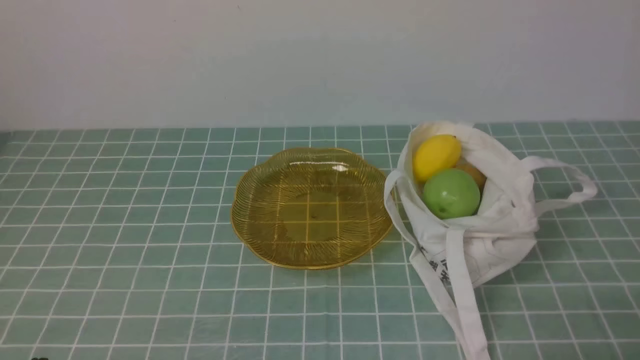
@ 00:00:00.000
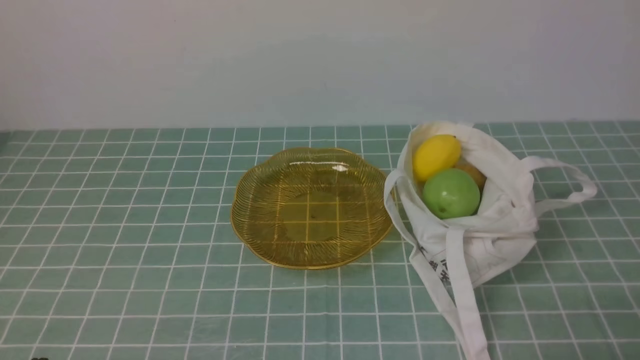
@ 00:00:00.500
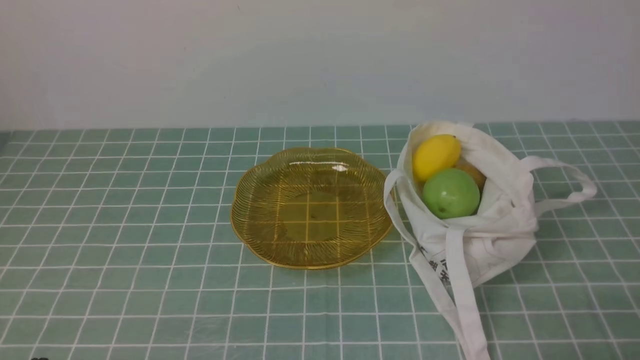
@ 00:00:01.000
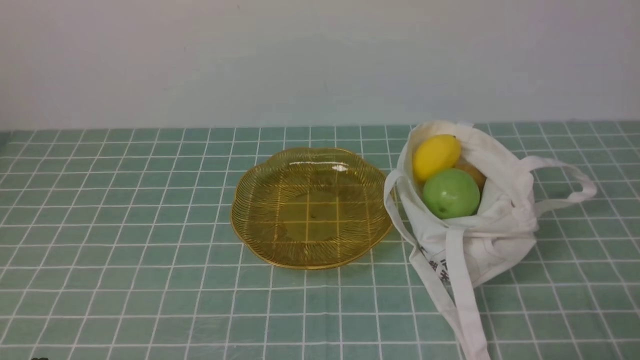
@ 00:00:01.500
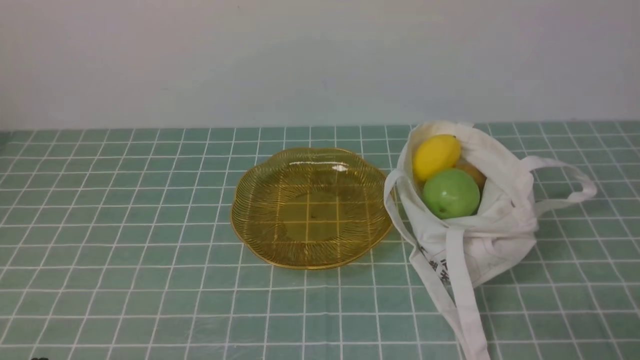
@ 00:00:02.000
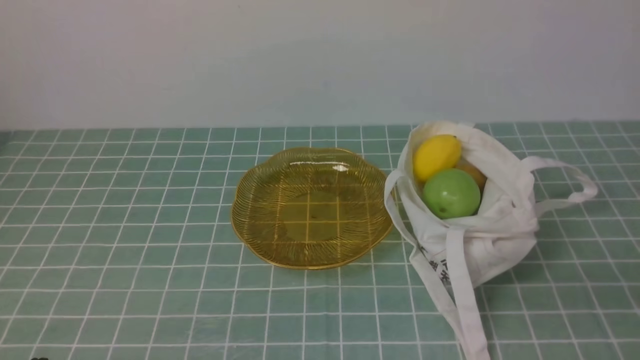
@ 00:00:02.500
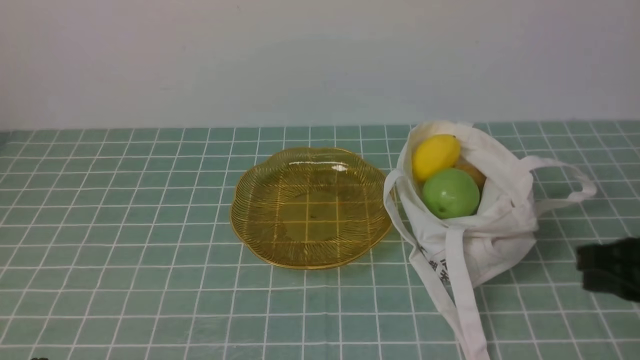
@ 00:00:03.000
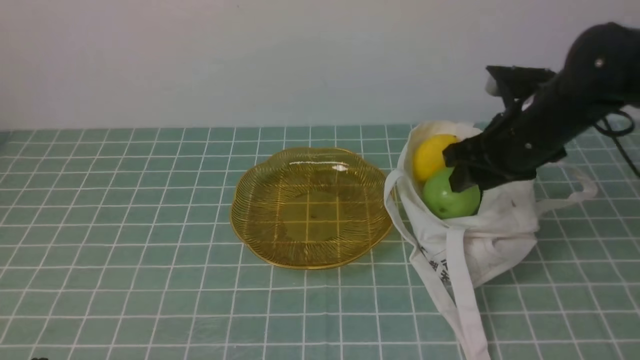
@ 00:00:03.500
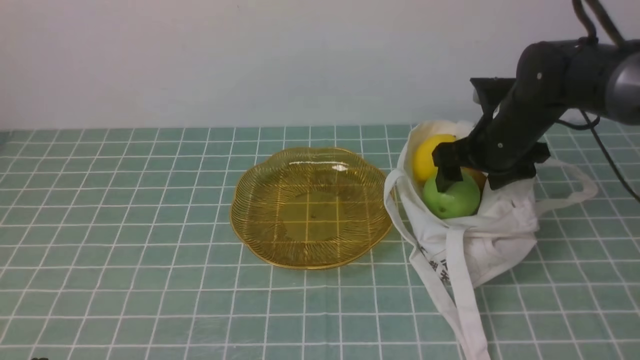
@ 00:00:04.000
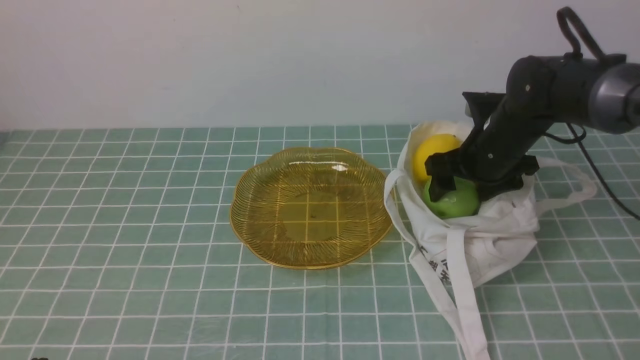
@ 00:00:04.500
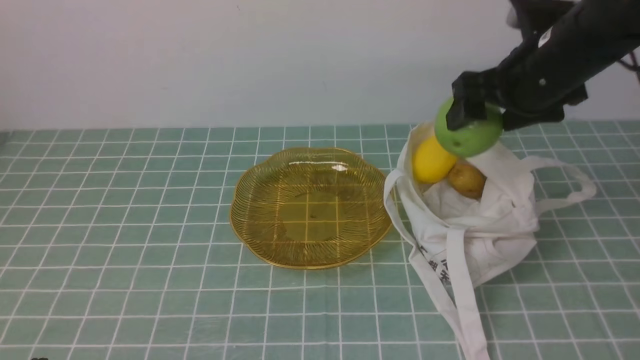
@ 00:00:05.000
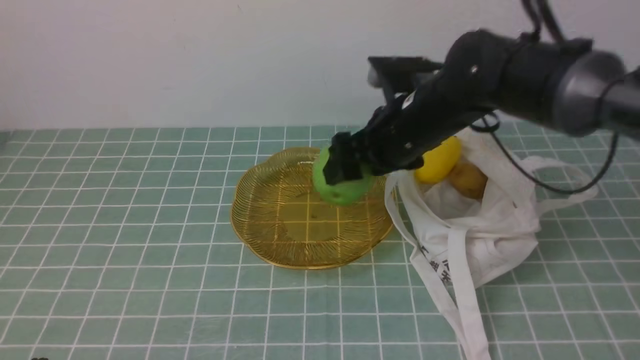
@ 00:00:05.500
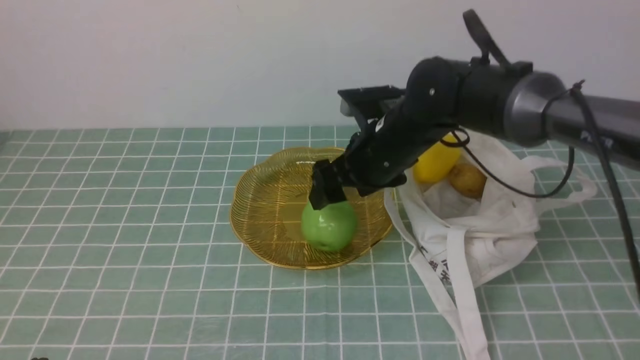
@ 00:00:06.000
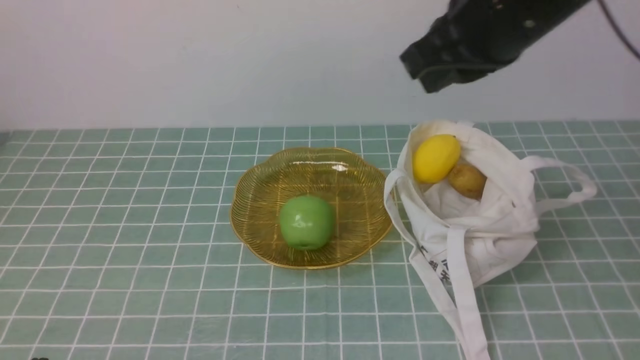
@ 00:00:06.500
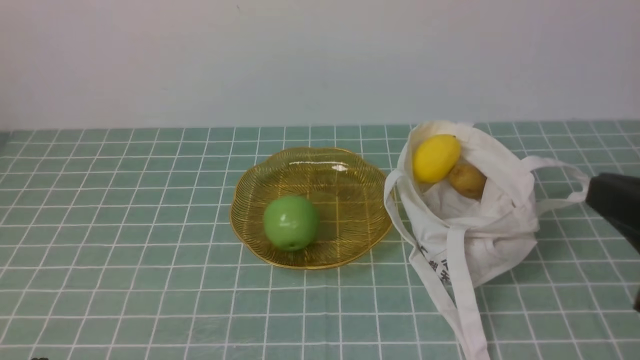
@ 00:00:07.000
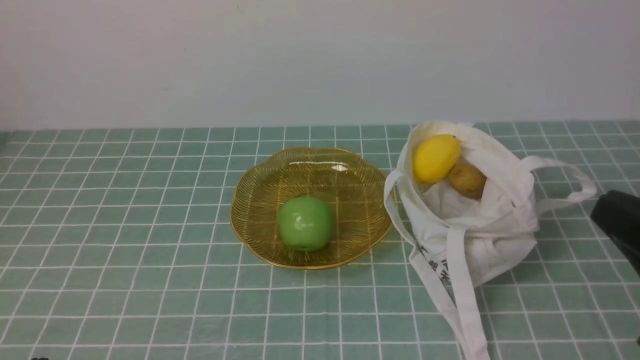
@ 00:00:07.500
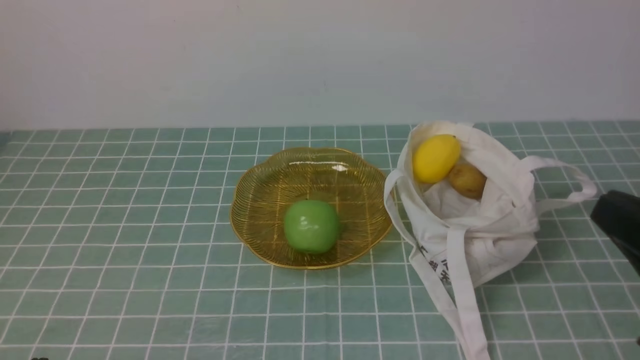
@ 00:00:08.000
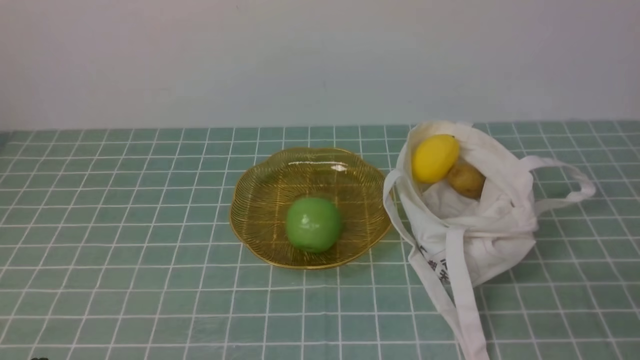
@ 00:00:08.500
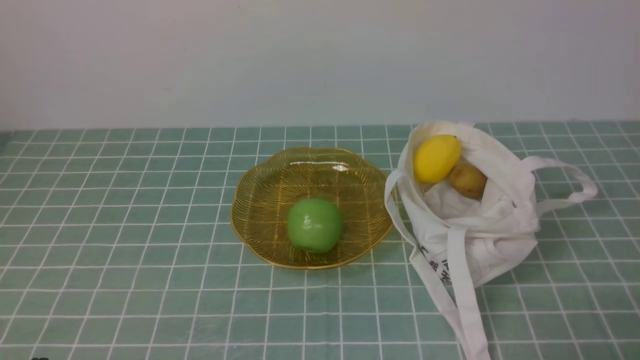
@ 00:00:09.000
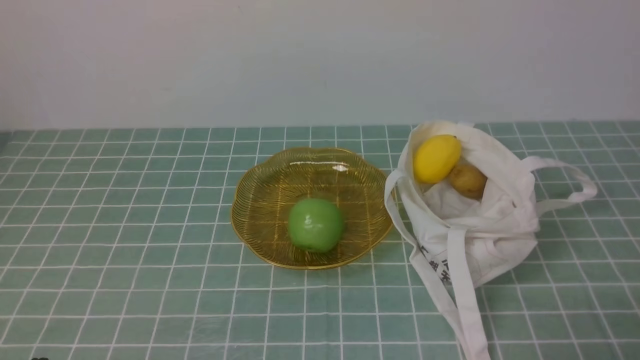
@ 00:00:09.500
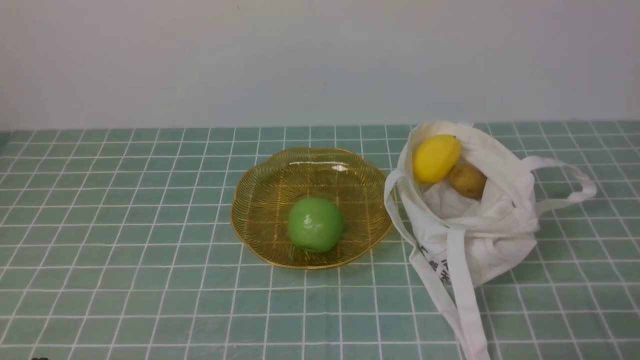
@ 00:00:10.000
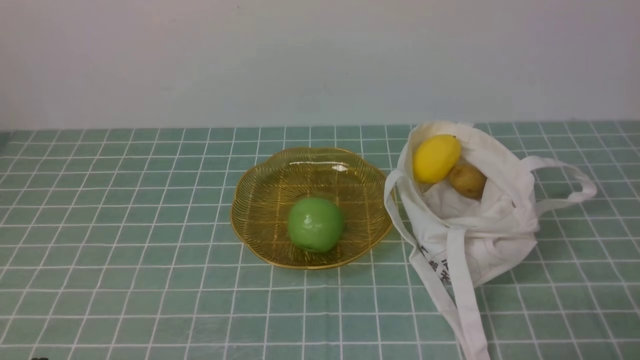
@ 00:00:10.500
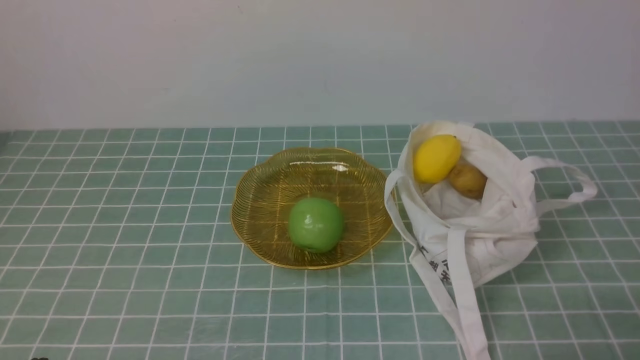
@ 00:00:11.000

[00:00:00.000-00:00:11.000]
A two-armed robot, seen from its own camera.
Step, 00:00:00.000 to 00:00:04.500: use the right arm to grab an apple from the bag.
Step, 00:00:05.000 to 00:00:05.500: use the right arm to put the apple into the empty plate on the left.
00:00:02.000 to 00:00:03.500: The right gripper shifts some 30 cm forward, and opens.
00:00:03.500 to 00:00:05.500: The right gripper travels to the left by about 10 cm, and opens its fingers.
00:00:05.500 to 00:00:07.500: The right gripper goes about 30 cm backward and to the right, and closes its fingers.
00:00:07.500 to 00:00:09.000: The right gripper moves downward and to the right, about 15 cm.

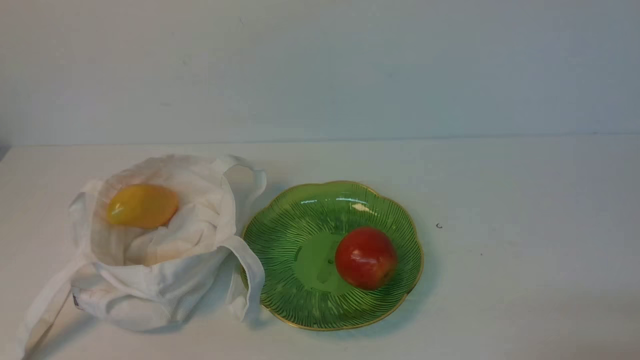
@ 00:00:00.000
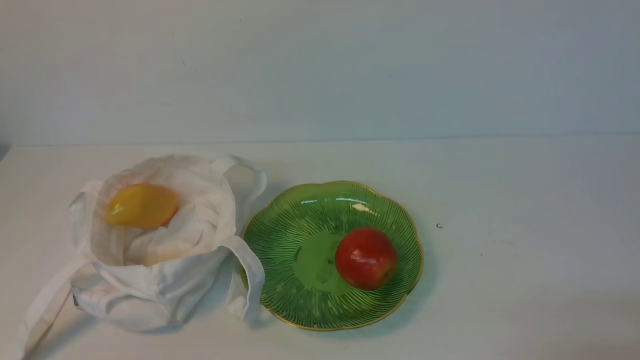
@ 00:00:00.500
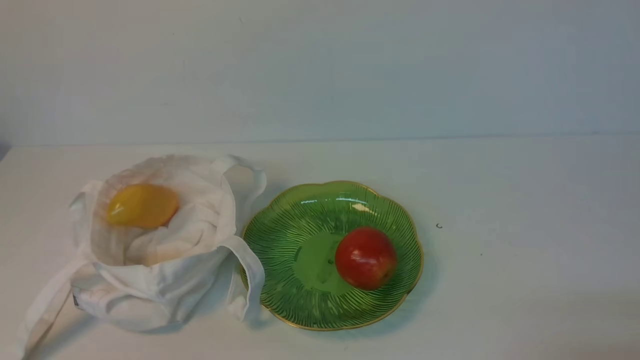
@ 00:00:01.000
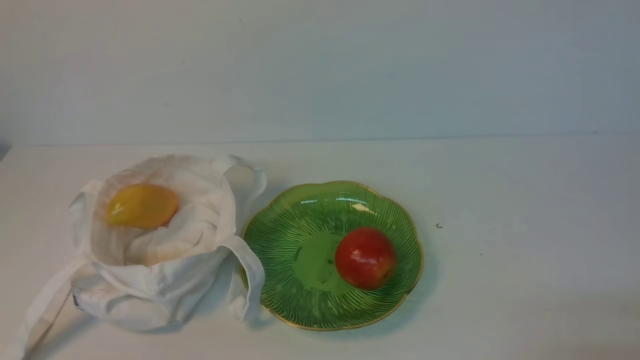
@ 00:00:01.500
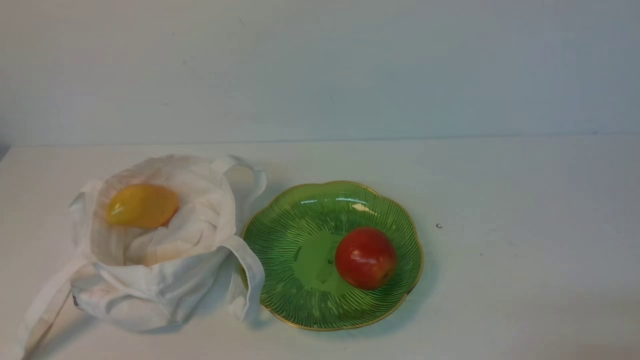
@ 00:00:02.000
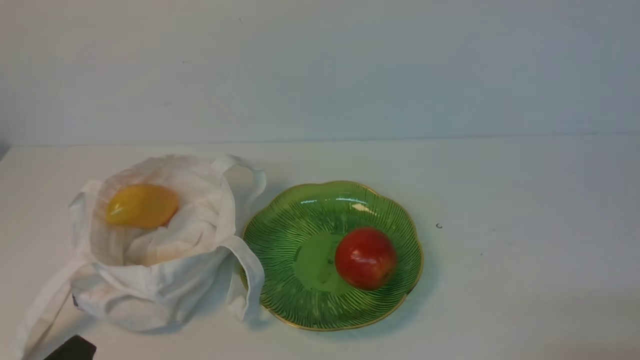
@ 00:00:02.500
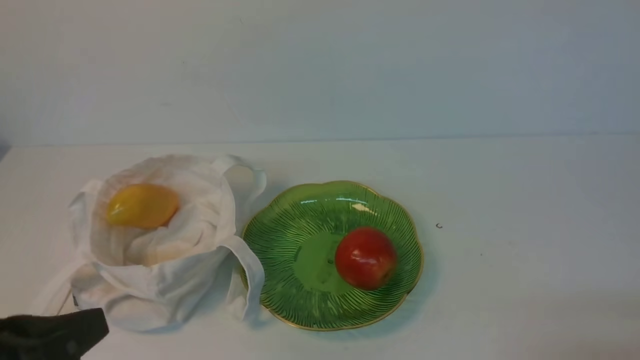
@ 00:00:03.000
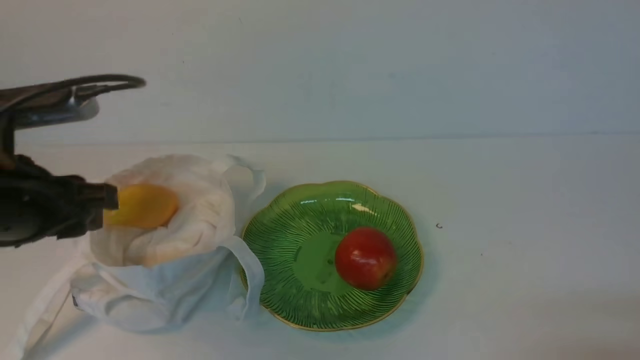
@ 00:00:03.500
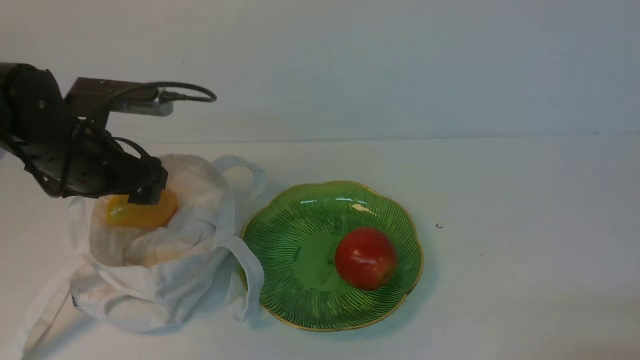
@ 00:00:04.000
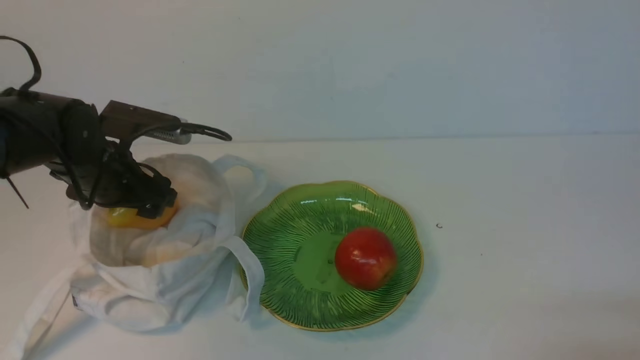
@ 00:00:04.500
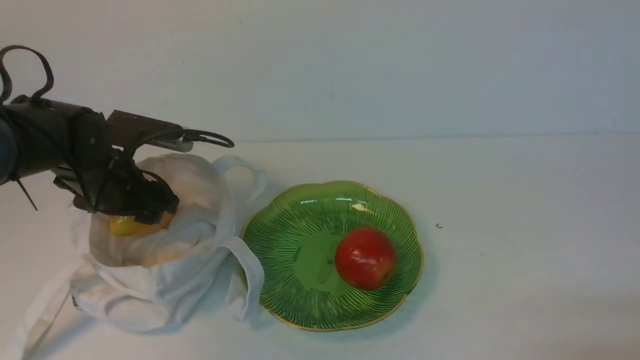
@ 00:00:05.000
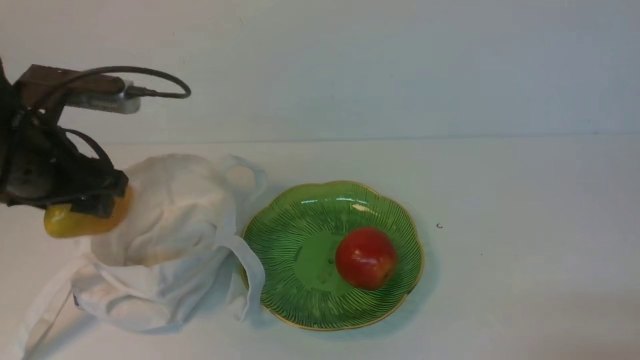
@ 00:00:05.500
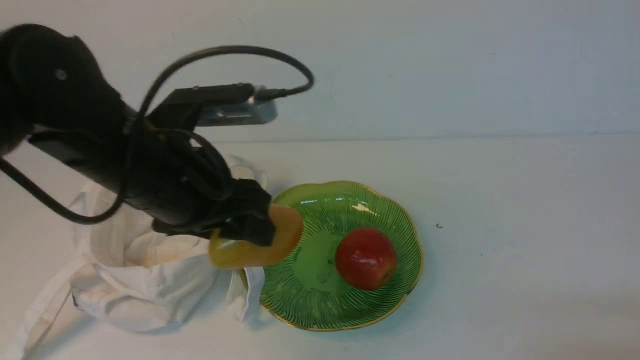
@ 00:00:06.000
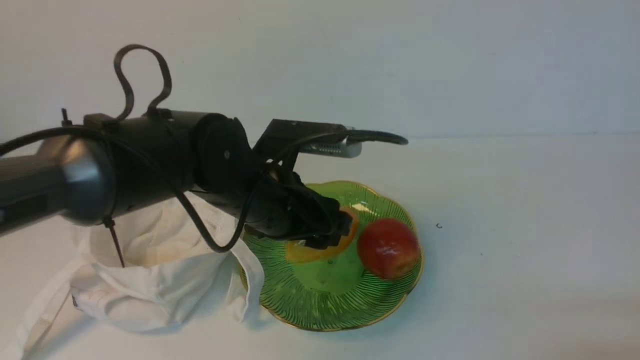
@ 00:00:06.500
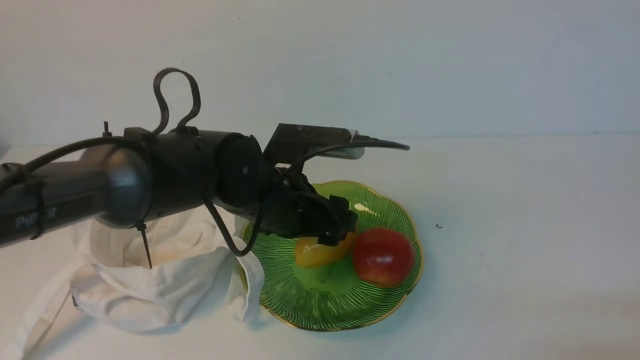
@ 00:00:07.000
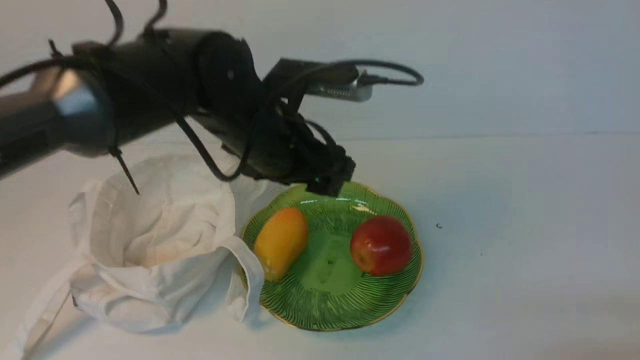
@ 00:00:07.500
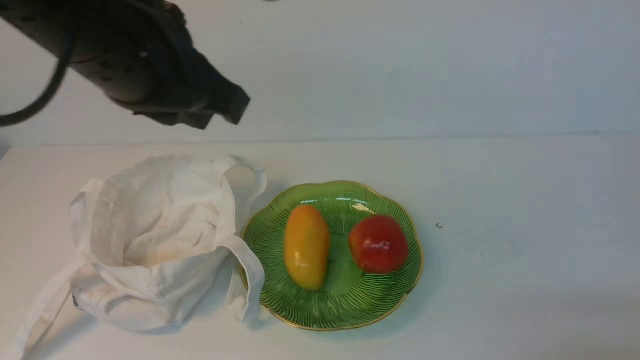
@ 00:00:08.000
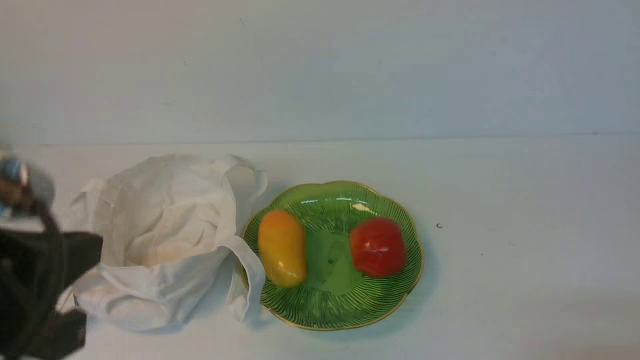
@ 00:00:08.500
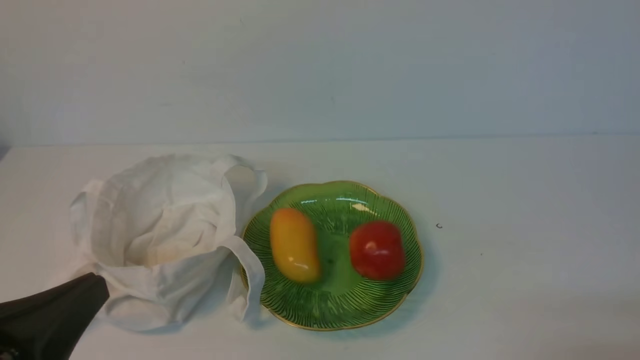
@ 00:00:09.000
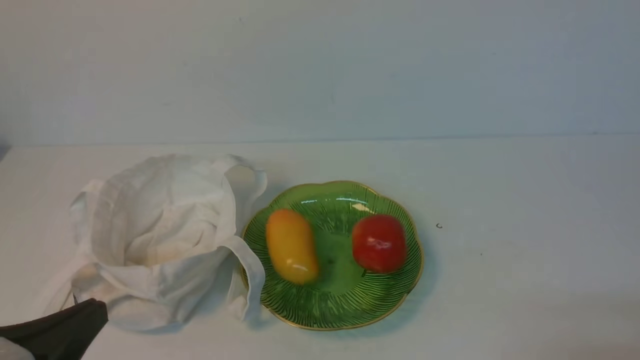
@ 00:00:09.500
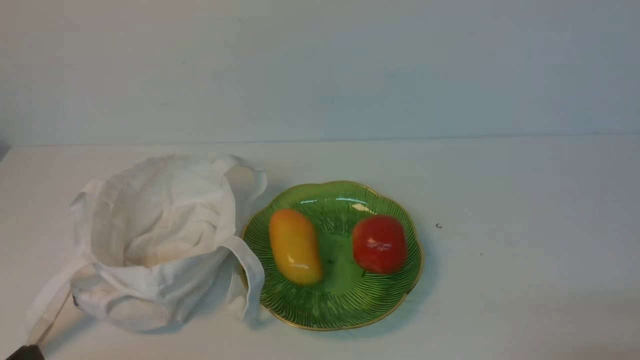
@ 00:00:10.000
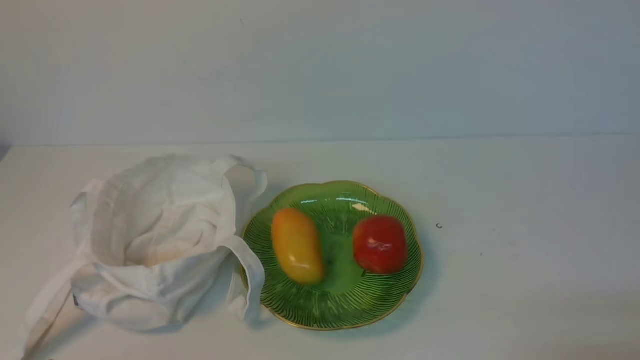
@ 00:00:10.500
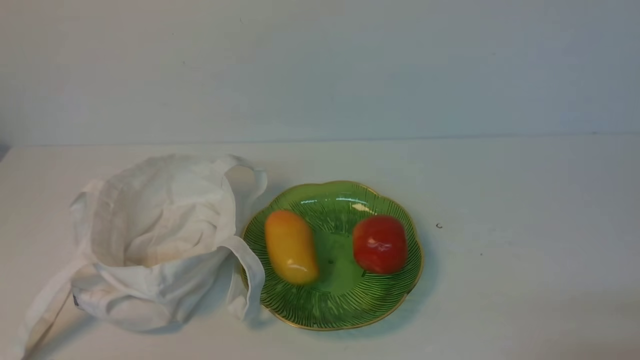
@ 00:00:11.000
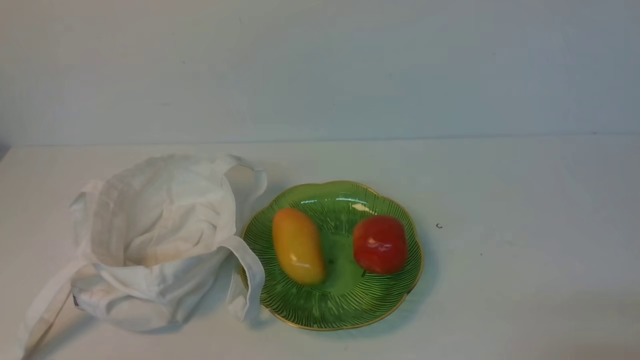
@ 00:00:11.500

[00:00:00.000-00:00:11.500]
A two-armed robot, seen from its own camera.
Step, 00:00:00.000 to 00:00:05.000: use the left arm to grab a mango from the bag.
Step, 00:00:05.500 to 00:00:07.000: use the left arm to put the mango into the empty plate on the right.
00:00:02.000 to 00:00:04.000: The left gripper shifts about 25 cm forward, and opens up.
00:00:04.000 to 00:00:06.000: The left gripper moves to the right and backward, approximately 10 cm.
00:00:06.000 to 00:00:07.500: The left gripper heads to the right and forward, covering some 10 cm.
00:00:07.500 to 00:00:09.500: The left gripper goes roughly 30 cm backward and to the left, and closes up.
00:00:09.500 to 00:00:11.500: The left gripper shifts about 10 cm downward.
